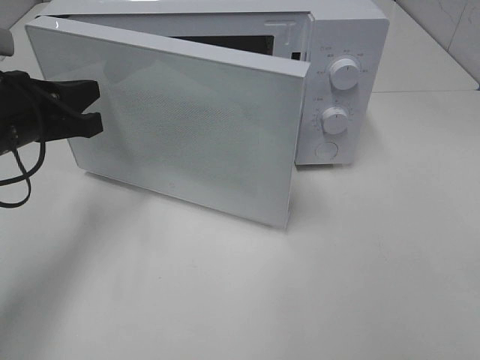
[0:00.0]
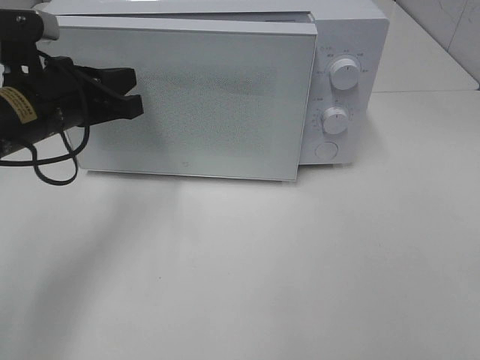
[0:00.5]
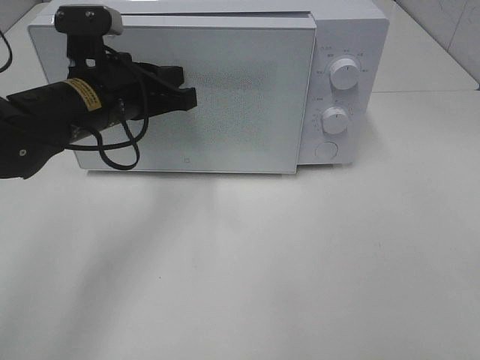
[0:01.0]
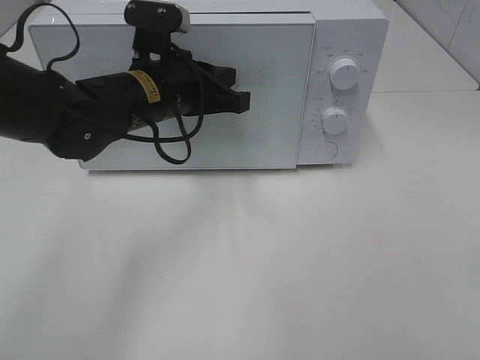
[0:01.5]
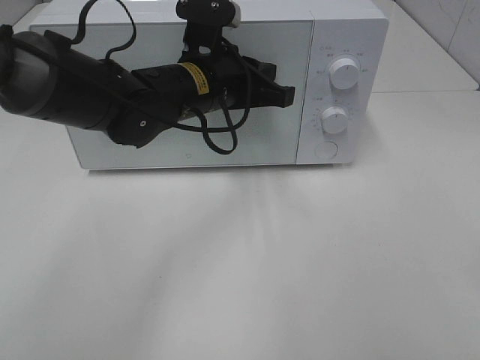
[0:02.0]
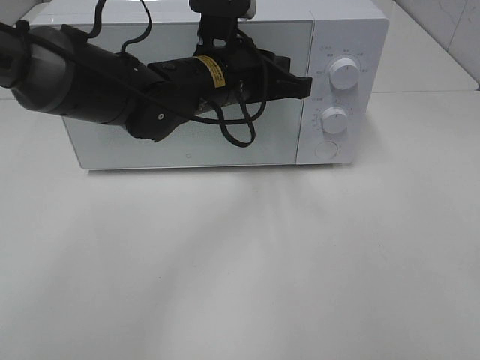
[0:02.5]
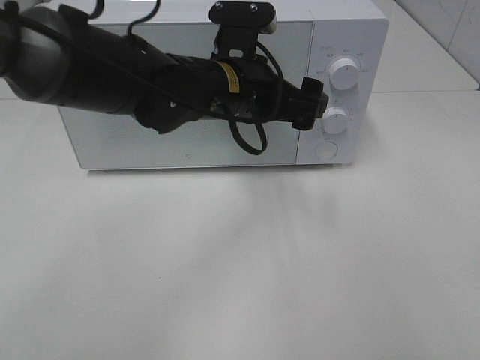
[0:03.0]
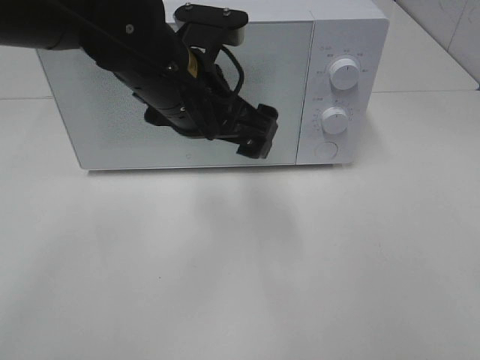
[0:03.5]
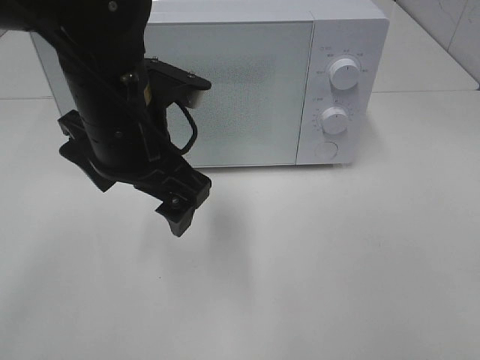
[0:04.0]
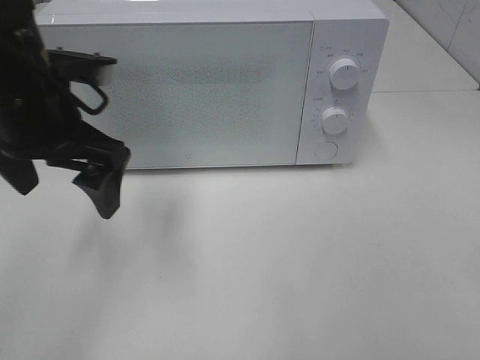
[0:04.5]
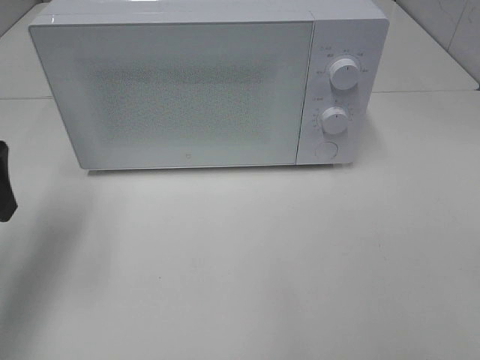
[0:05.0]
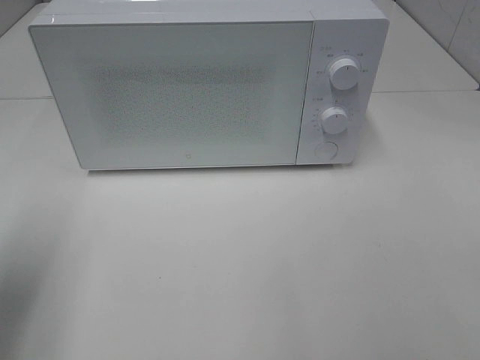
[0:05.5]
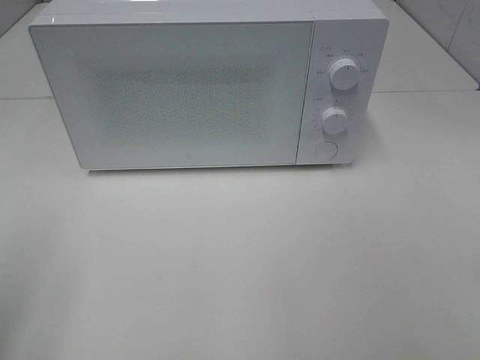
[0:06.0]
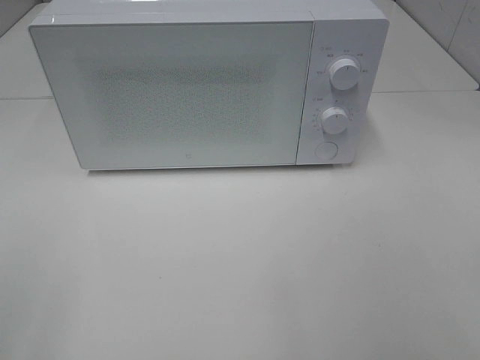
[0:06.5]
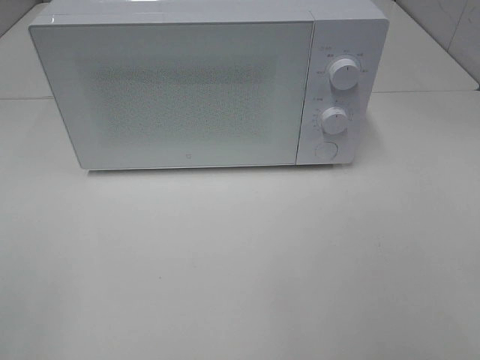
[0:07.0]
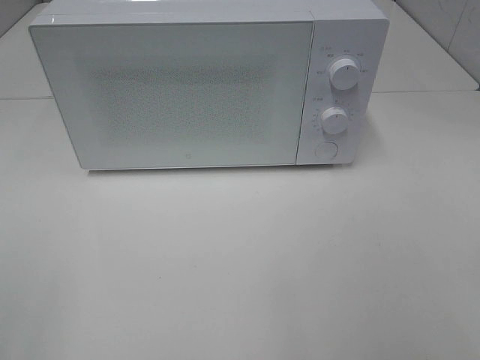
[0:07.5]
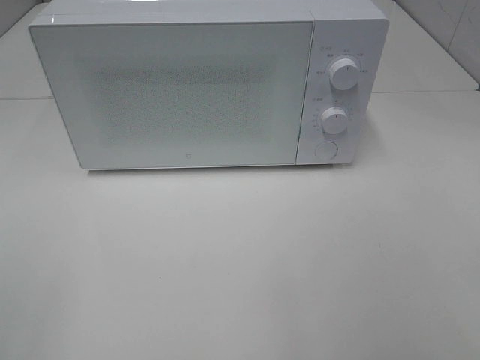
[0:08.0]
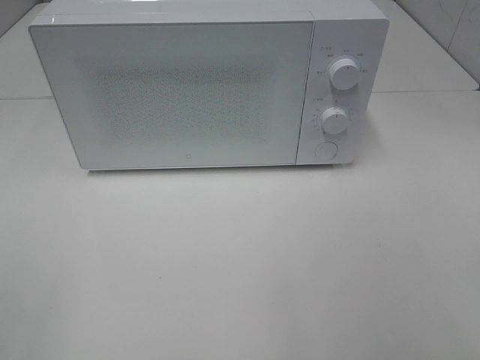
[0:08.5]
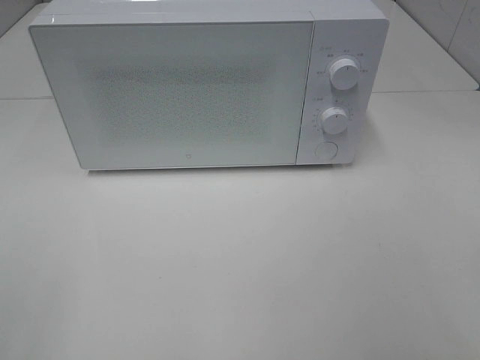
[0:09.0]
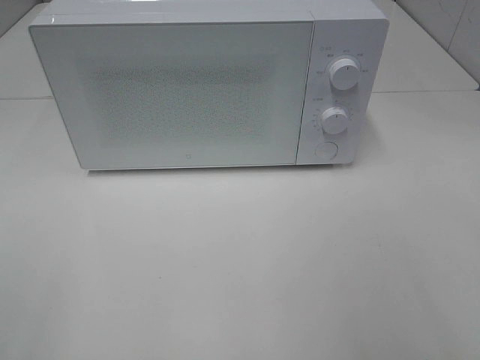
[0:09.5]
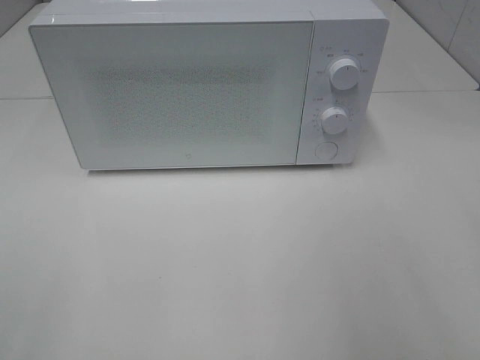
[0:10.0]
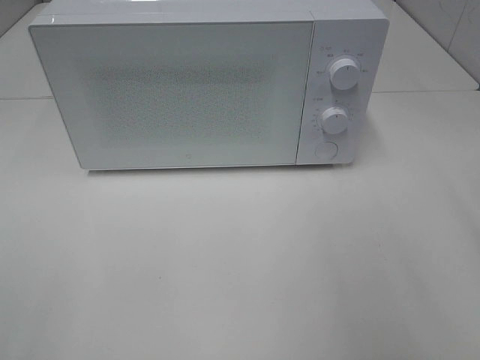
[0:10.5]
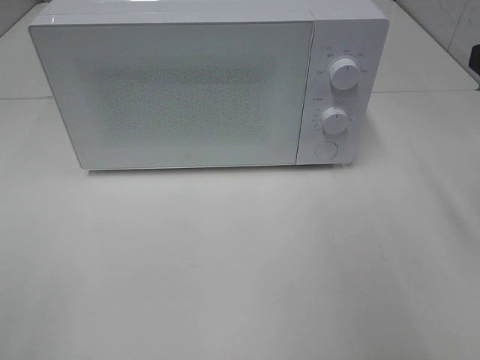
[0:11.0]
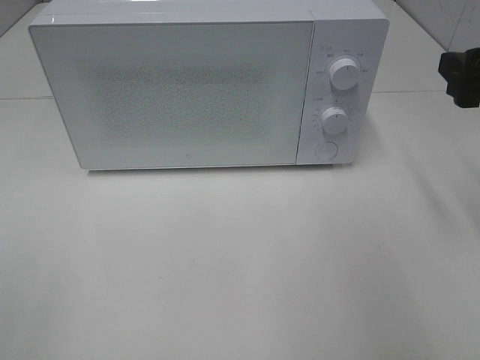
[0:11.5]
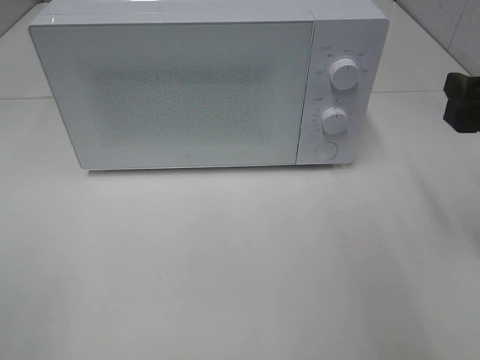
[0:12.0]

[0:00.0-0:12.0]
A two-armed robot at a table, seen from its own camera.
Task of the whole recording: Heat the burger.
0:00.0 to 0:02.0: The left gripper heads to the right, covering about 20 cm.
0:02.0 to 0:04.0: The left gripper goes approximately 10 cm backward, and opens up.
0:04.0 to 0:06.0: The left gripper shifts about 30 cm to the left and backward.
0:10.0 to 0:12.0: The right gripper goes approximately 15 cm forward and downward.

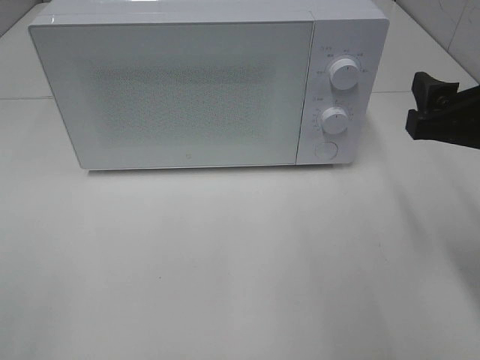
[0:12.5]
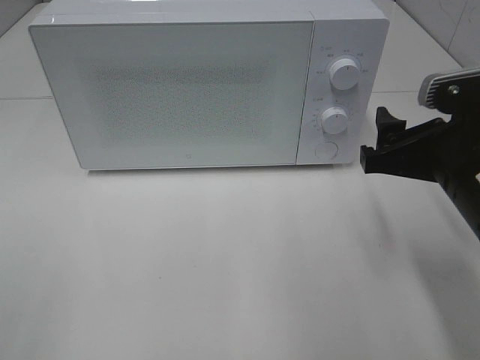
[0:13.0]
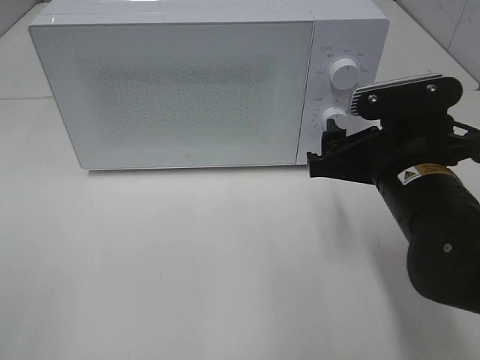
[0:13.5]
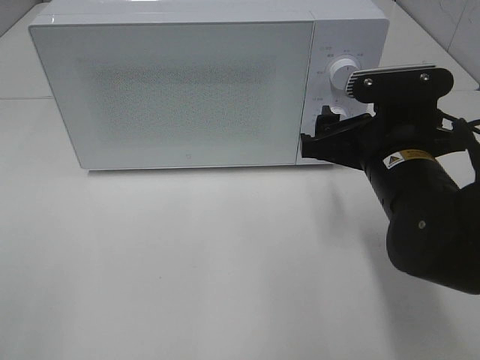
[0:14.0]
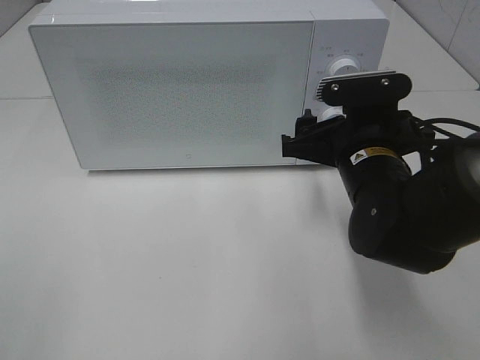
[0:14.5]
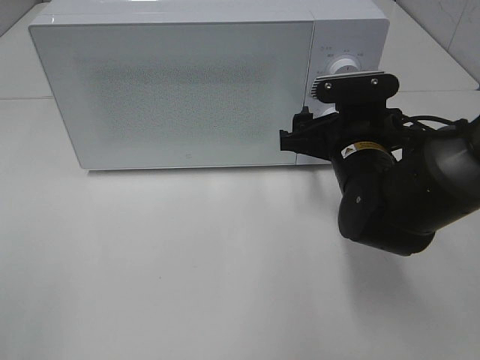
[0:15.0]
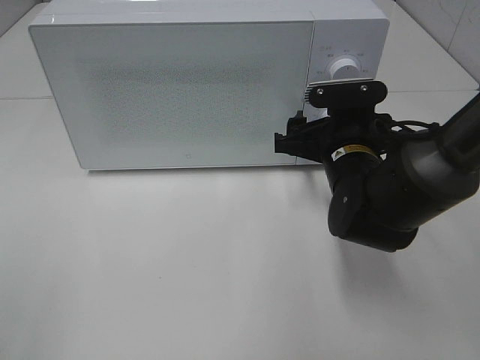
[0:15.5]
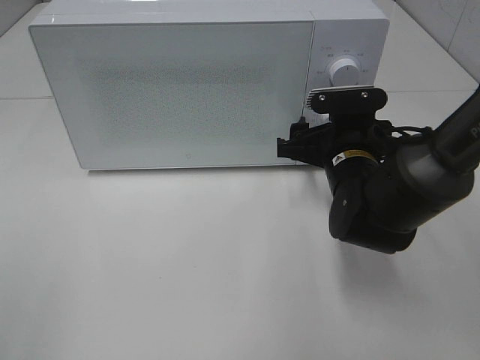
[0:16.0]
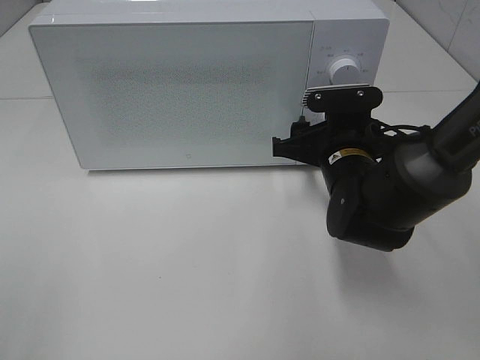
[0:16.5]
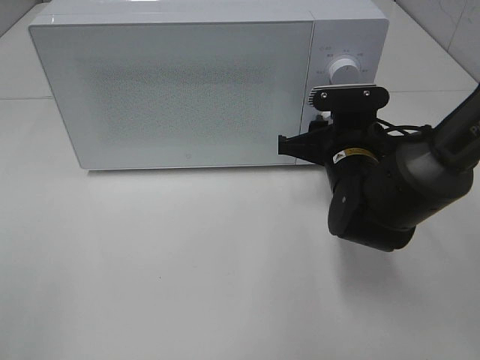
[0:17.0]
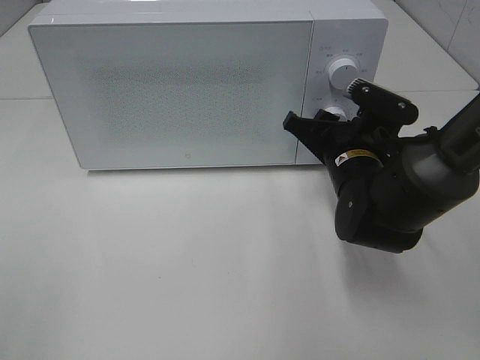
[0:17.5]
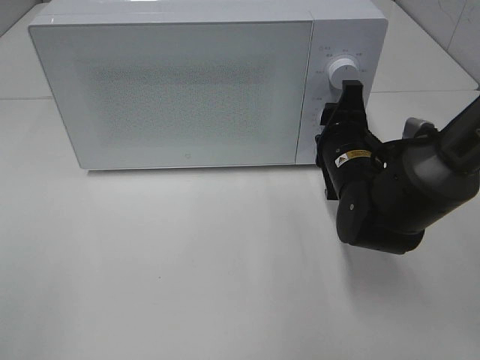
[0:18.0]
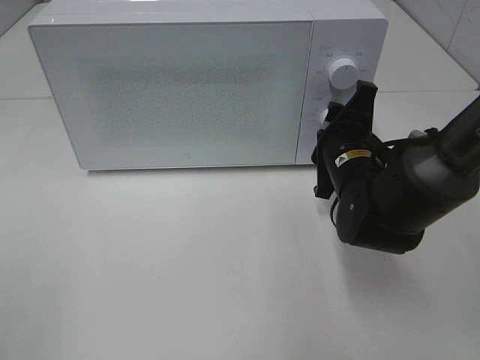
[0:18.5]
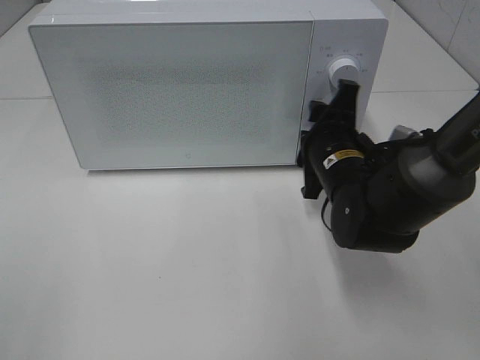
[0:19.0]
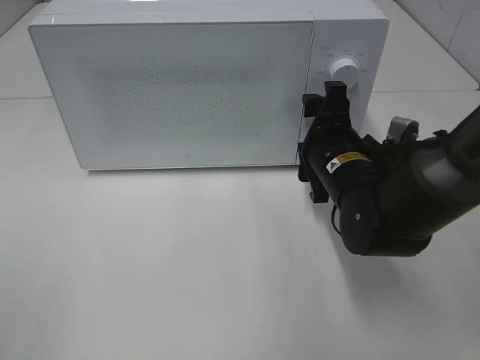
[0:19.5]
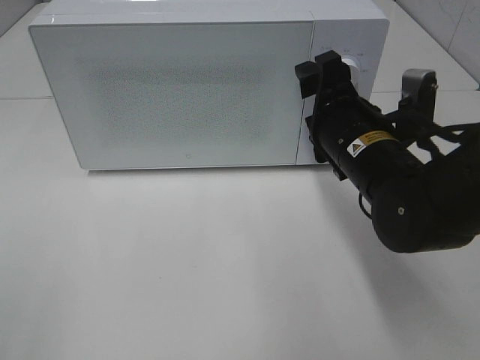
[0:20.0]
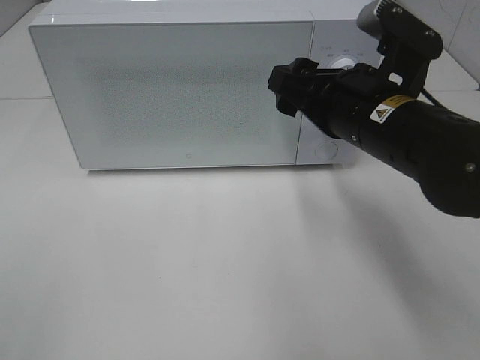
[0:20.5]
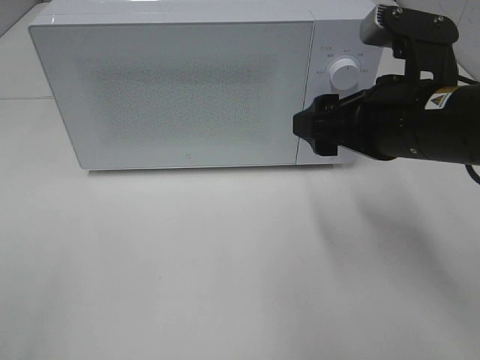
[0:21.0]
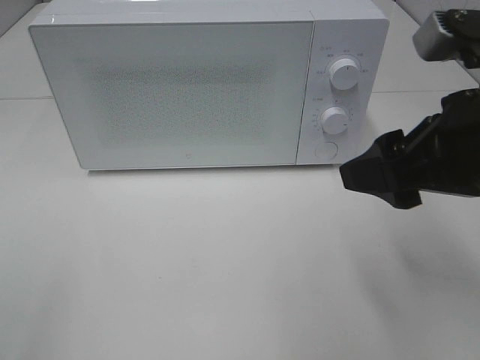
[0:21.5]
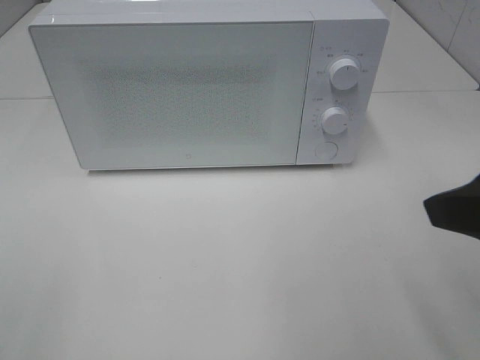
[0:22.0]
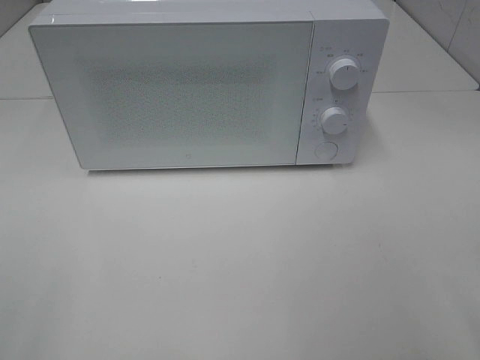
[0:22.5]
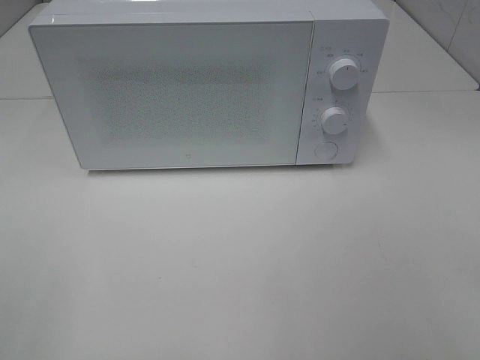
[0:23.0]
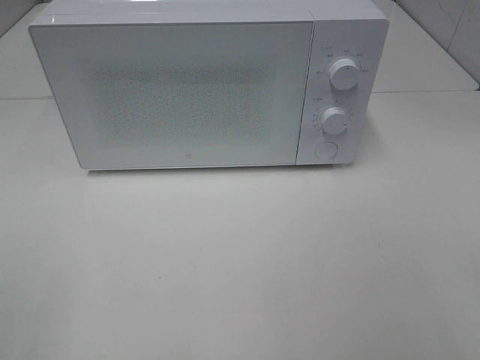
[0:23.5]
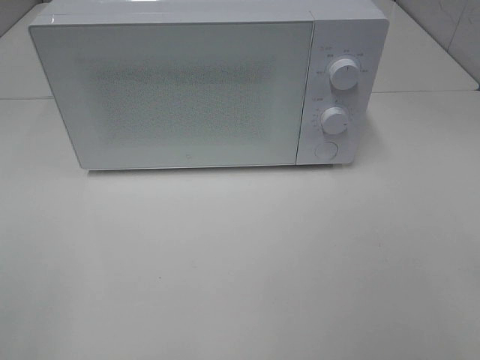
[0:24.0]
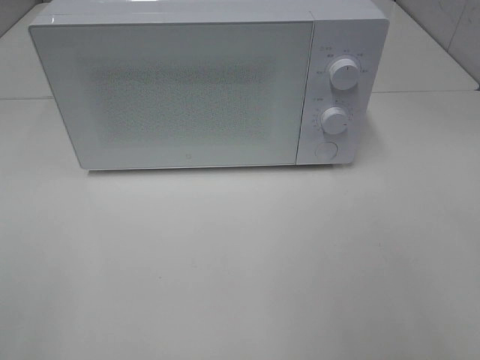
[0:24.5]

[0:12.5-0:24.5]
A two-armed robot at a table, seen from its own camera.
Task of the whole recording: Heat the burger.
Step, 0:12.5 to 0:19.0: Right hand: twist timer button.
0:12.5 to 0:14.5: The right gripper heads to the left, downward and forward, covering approximately 15 cm.
0:14.5 to 0:16.5: The right gripper shifts by approximately 5 cm.
0:18.5 to 0:20.5: The right gripper goes some 10 cm upward and backward, and opens its fingers.
0:20.5 to 0:22.5: The right gripper heads backward and to the right, covering approximately 25 cm.

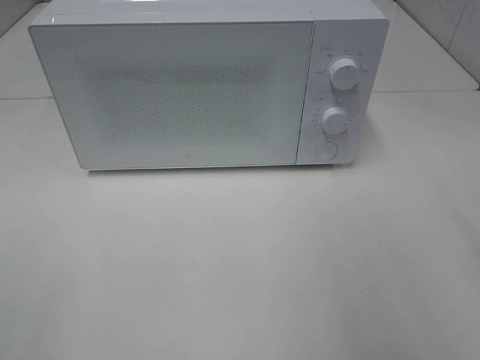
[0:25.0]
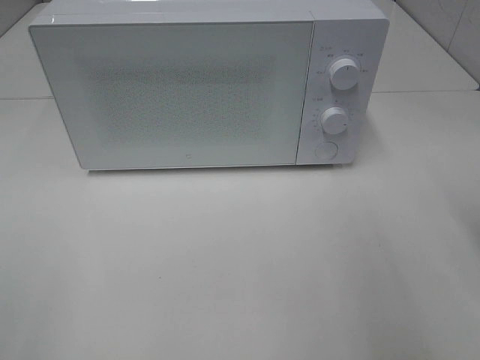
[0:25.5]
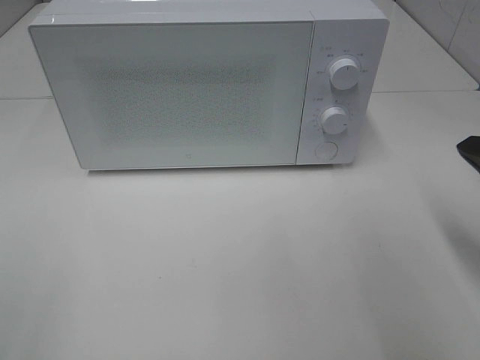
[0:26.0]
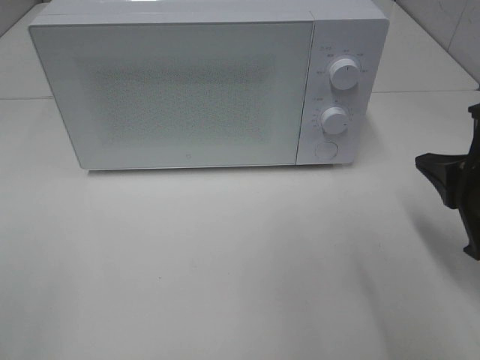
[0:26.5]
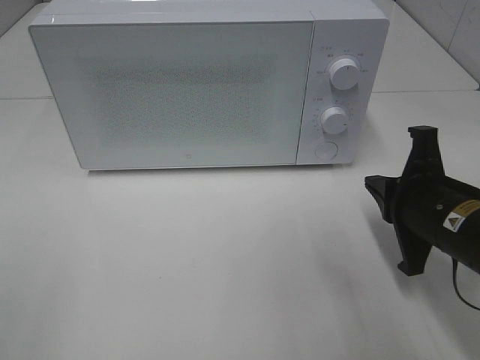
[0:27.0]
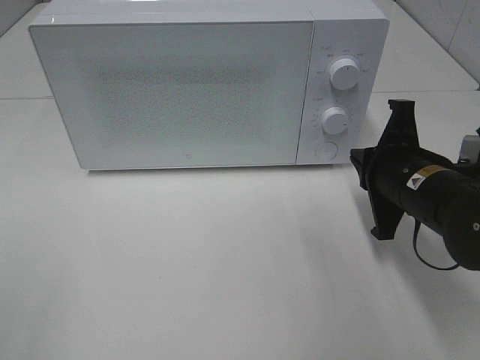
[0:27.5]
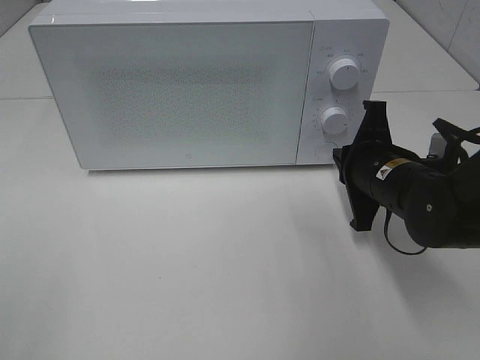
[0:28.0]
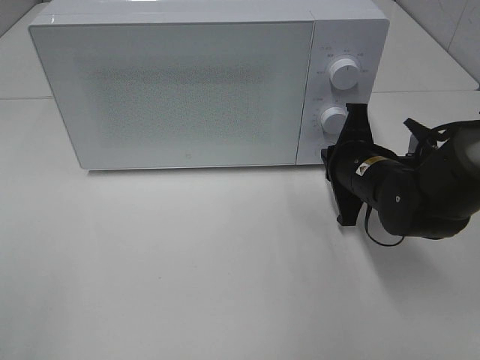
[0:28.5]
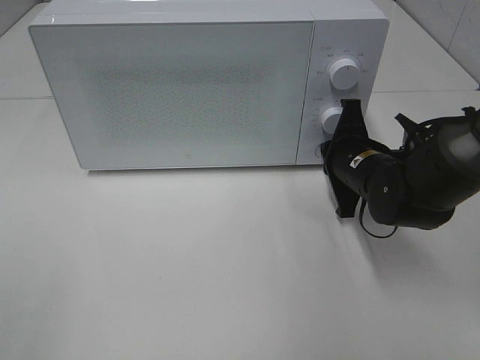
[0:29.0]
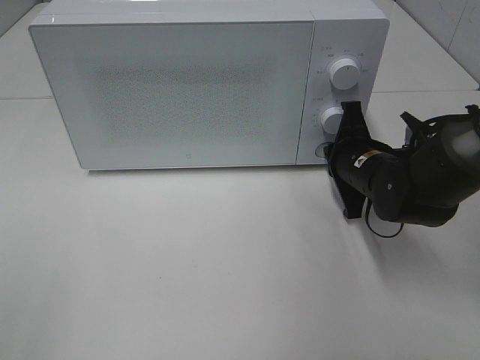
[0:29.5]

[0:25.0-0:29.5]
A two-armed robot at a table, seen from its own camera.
Task of the whole recording: Heat the burger.
0:25.0 to 0:27.0: The right gripper goes approximately 20 cm downward, to the left and forward, and closes its fingers.
0:27.0 to 0:29.5: The right gripper goes some 10 cm forward.
